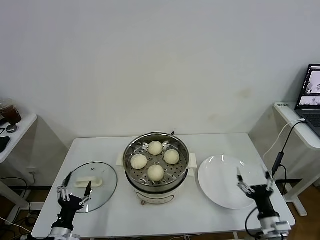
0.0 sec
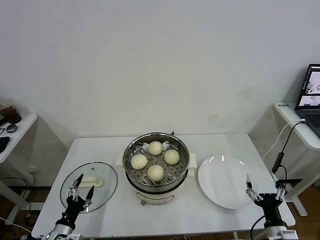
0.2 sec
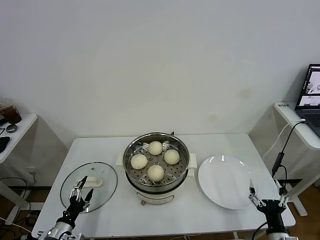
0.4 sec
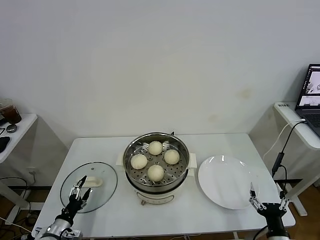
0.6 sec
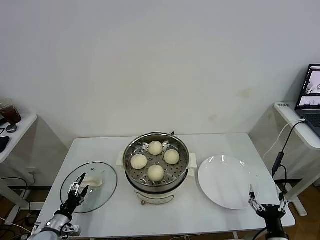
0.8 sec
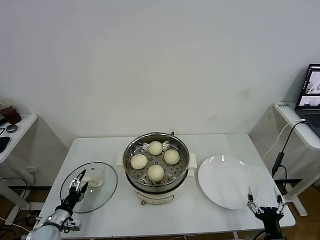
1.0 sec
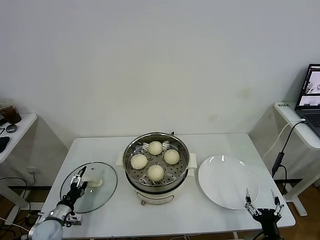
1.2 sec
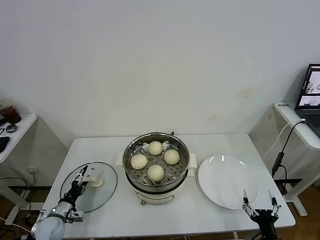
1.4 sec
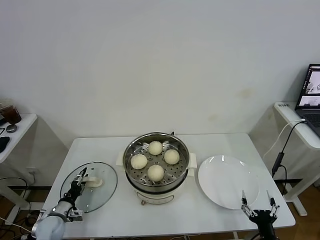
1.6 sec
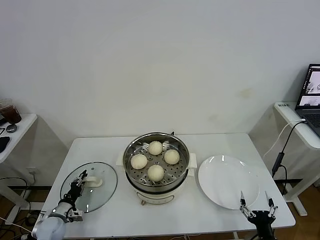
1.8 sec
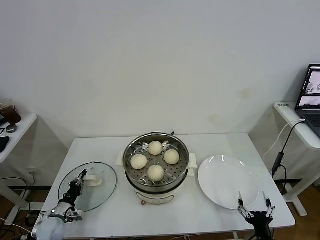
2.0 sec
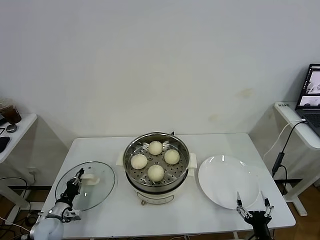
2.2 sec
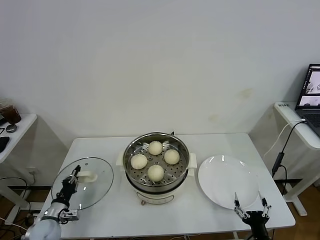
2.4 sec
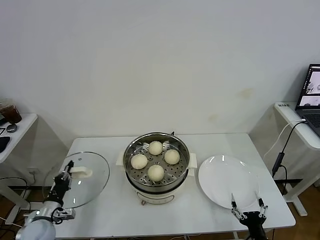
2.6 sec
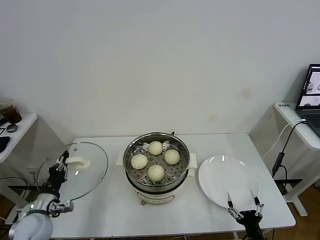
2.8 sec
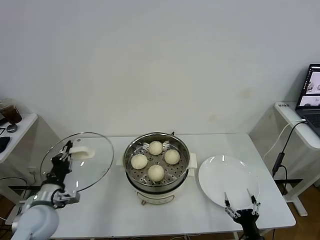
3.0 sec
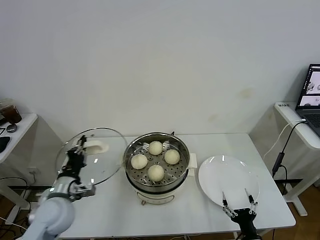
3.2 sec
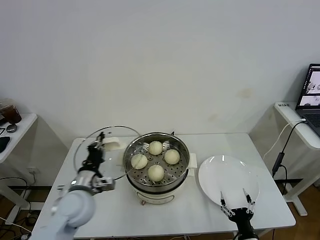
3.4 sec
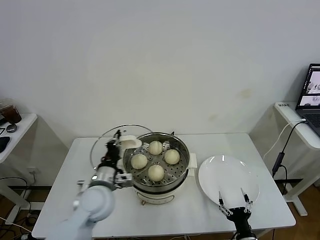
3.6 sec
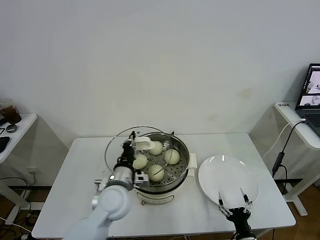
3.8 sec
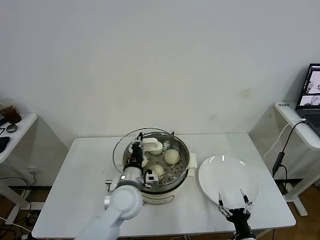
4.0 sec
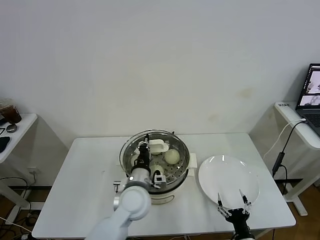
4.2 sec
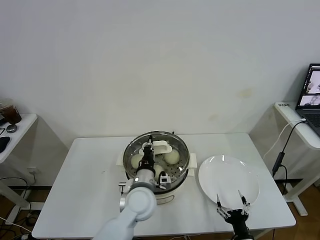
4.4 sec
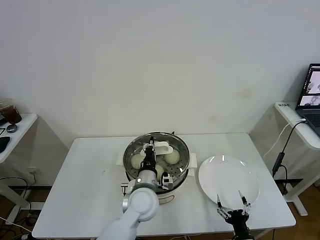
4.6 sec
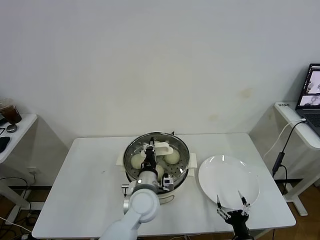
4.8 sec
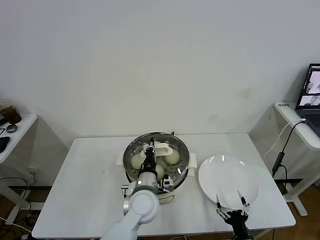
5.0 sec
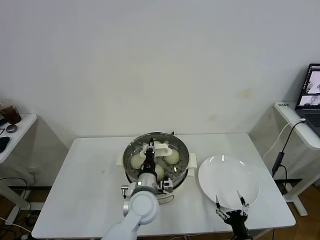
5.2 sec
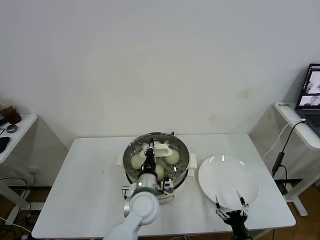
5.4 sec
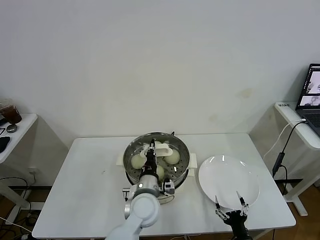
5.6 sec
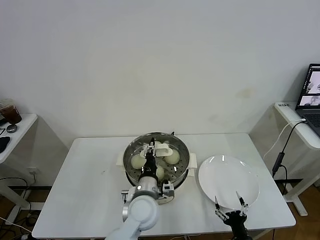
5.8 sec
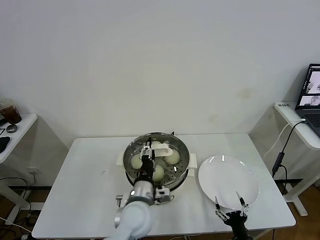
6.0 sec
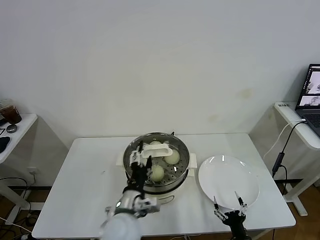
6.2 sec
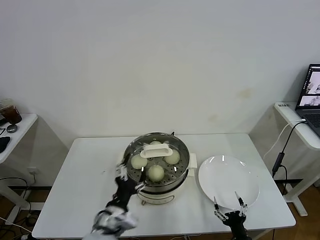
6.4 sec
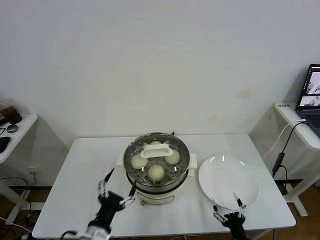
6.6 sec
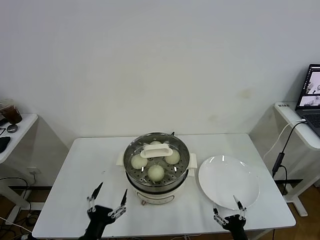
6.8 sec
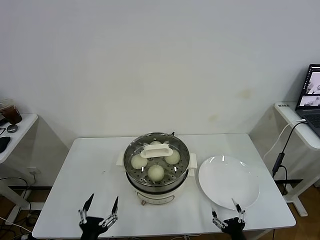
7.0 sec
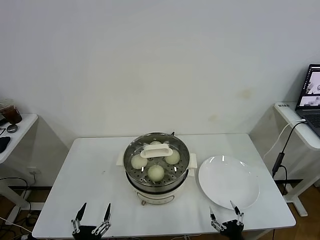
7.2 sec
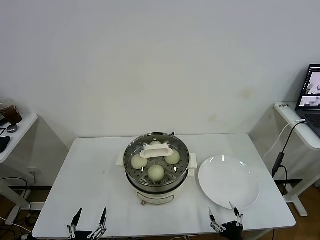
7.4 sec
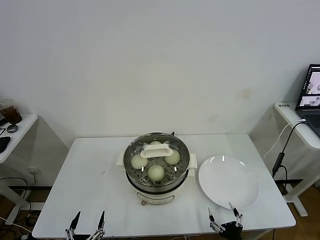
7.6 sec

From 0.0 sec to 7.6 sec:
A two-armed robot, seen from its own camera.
Task of the whole recording: take steamed baozi put them in steamer.
Step, from 0.0 sec to 2.0 sec: Grasp the pot lid with left gripper.
Step, from 2.2 sec to 6.0 sec: Place the pot lid on the steamer with left gripper.
From 0.0 sec to 1.6 sec: The right gripper goes approximately 5 cm backward; the left gripper goes approximately 15 cm forward, to the left and downward, and closes its fingers.
From 1.6 sec to 3.0 sec: The left gripper heads upward, covering approximately 20 cm, and closes its fingers.
From 3.0 sec to 4.6 sec: The left gripper shifts some 30 cm to the right.
From 4.6 sec to 6.0 sec: The left gripper opens up.
From 6.0 sec to 7.6 sec: The left gripper moves backward, to the left and downward, about 35 cm, and opens.
